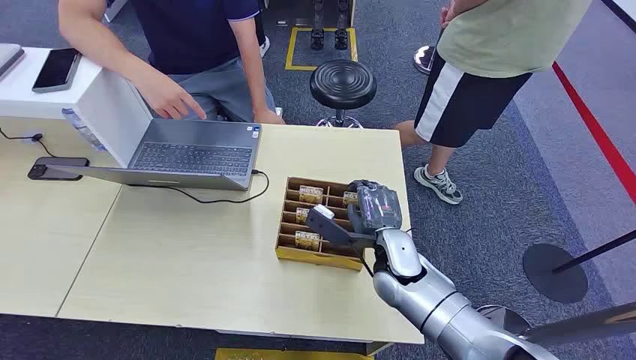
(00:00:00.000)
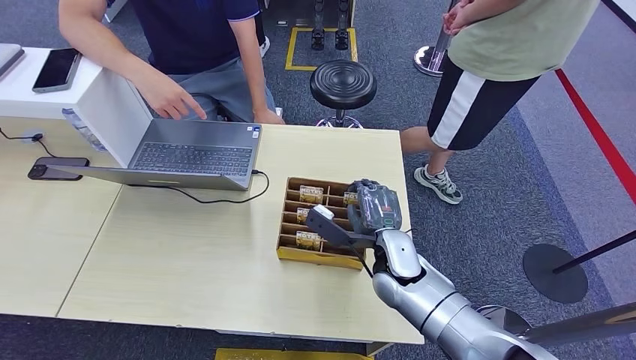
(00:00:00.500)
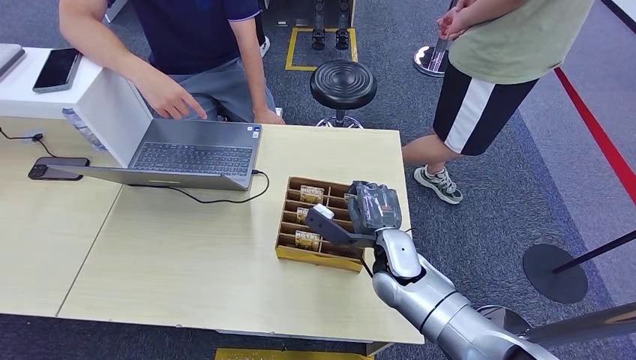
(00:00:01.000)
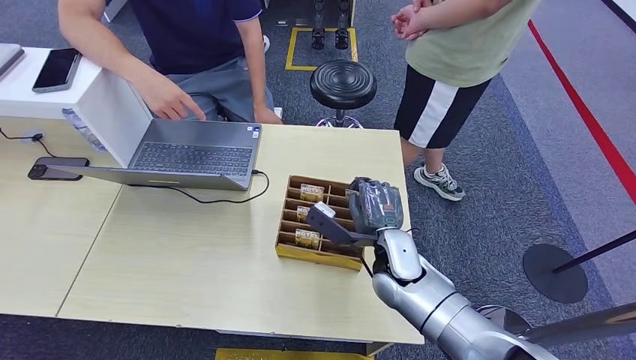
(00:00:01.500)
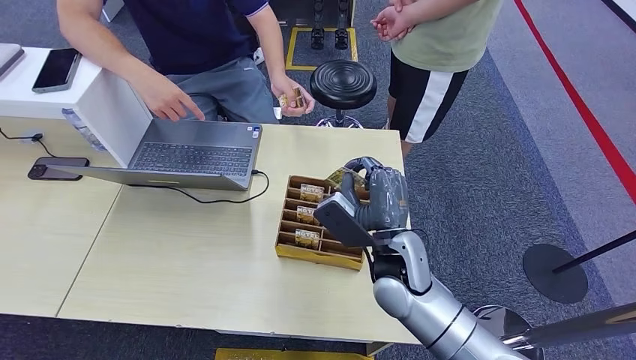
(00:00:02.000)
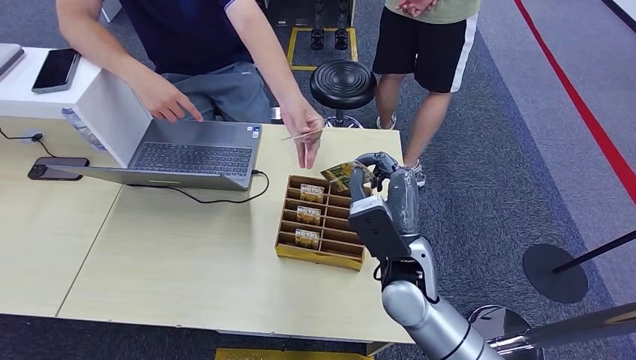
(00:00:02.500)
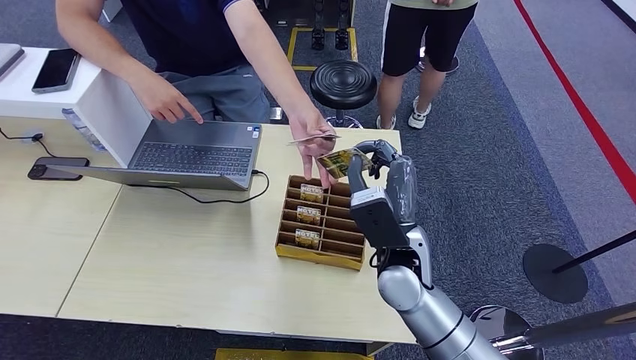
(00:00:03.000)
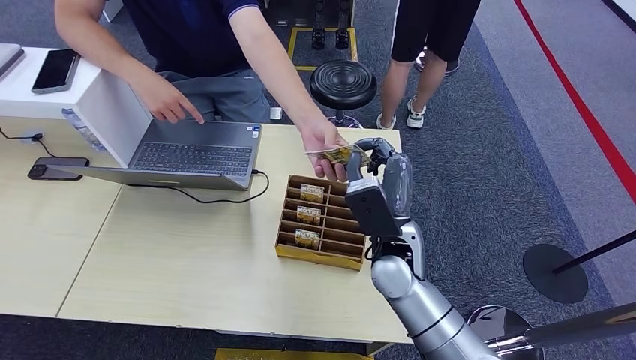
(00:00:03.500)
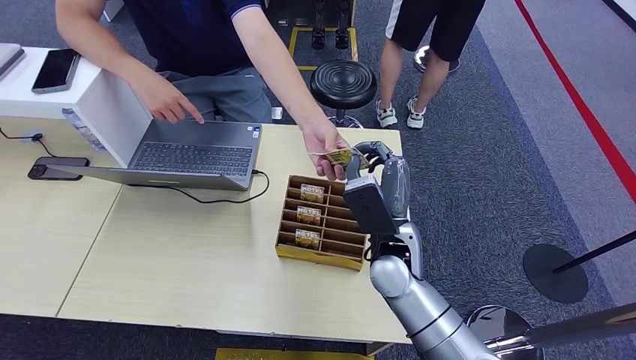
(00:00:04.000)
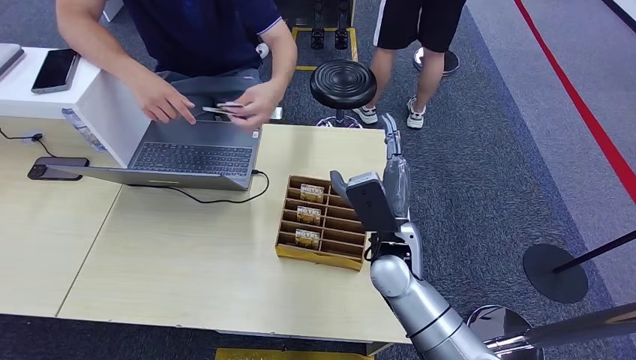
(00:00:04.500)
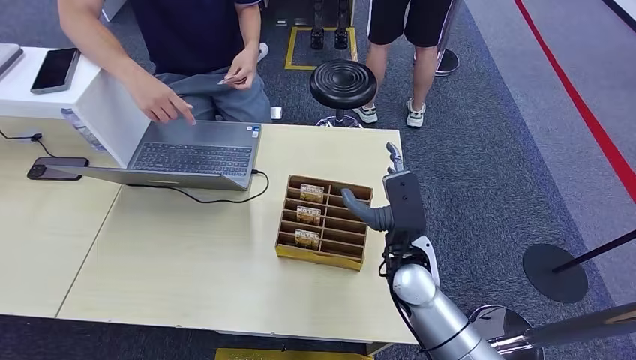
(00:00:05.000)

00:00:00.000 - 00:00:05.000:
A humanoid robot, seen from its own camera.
Step, 00:00:00.000 - 00:00:02.000: Pick up the key card from the card box.
Step, 00:00:02.500 - 00:00:04.500: Hand the key card to the target.

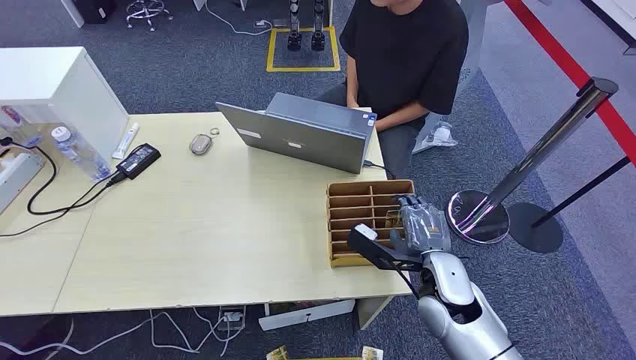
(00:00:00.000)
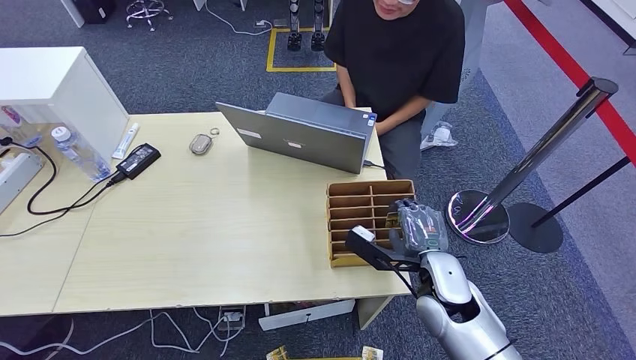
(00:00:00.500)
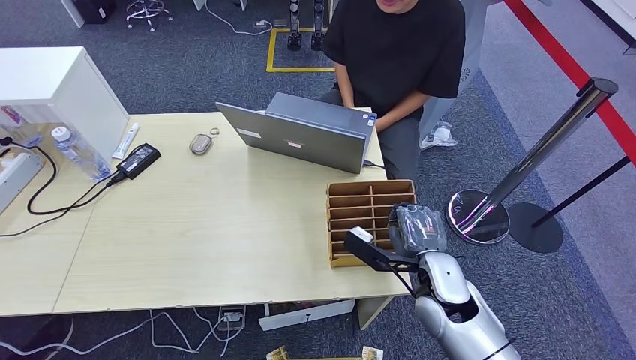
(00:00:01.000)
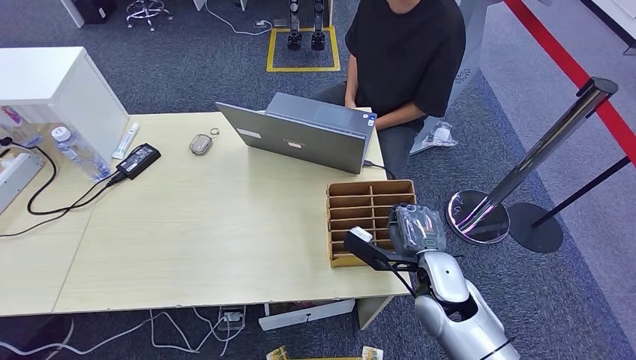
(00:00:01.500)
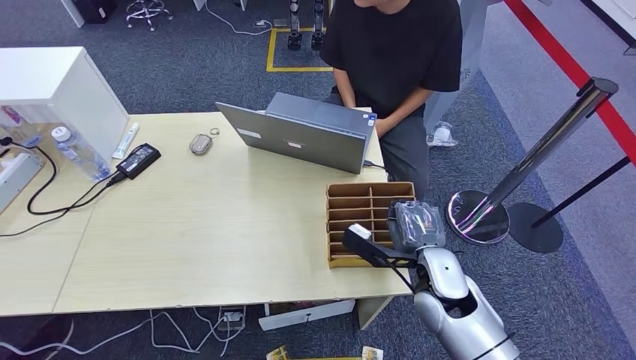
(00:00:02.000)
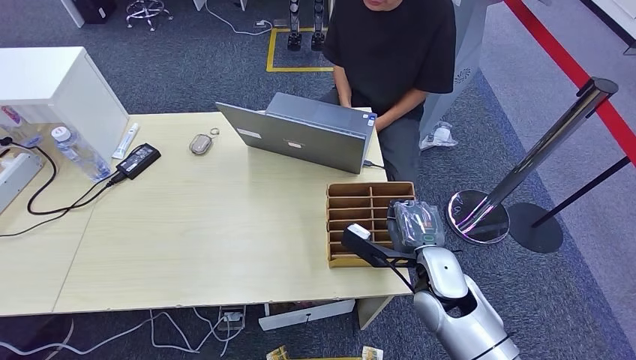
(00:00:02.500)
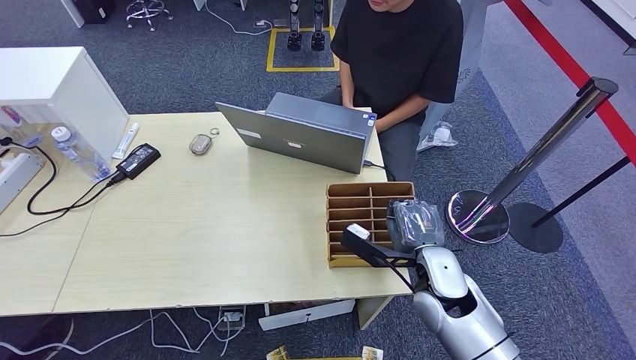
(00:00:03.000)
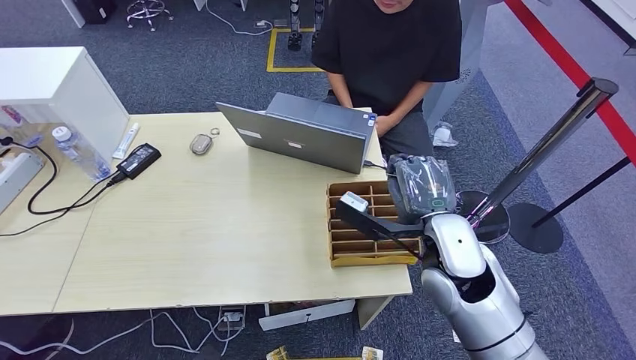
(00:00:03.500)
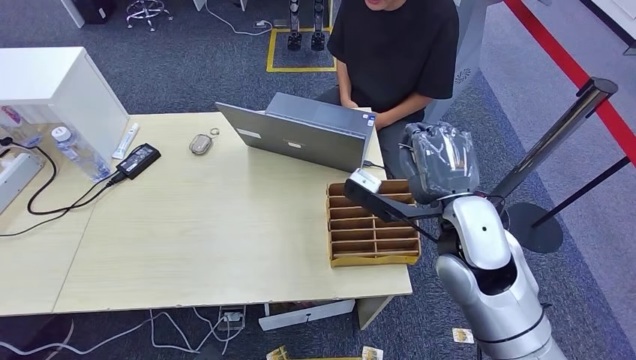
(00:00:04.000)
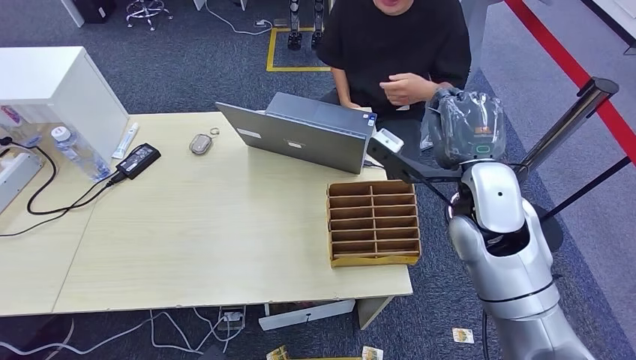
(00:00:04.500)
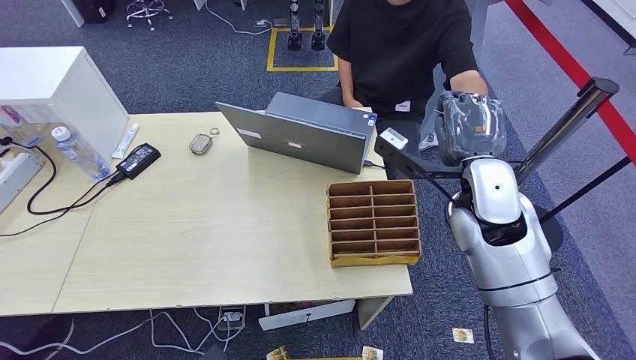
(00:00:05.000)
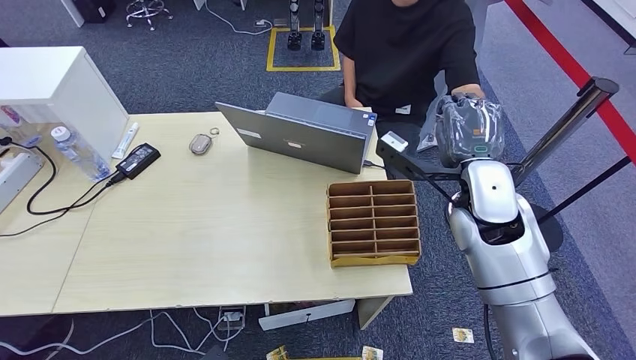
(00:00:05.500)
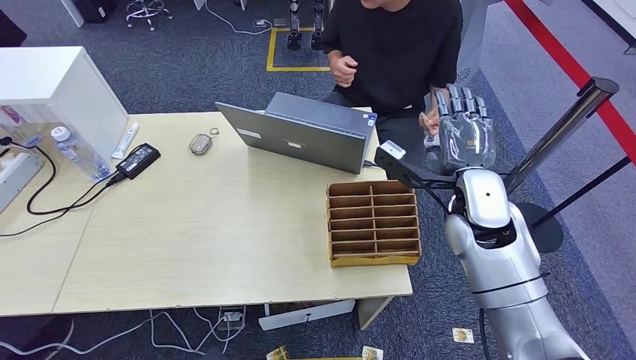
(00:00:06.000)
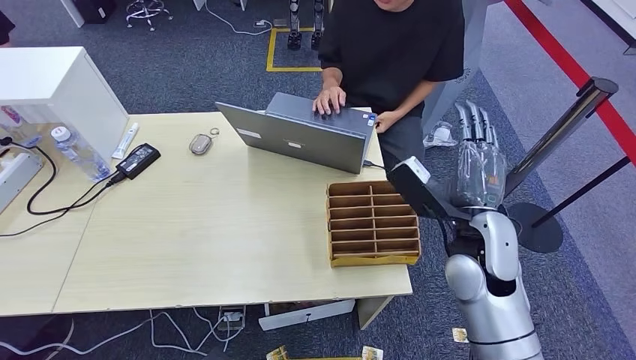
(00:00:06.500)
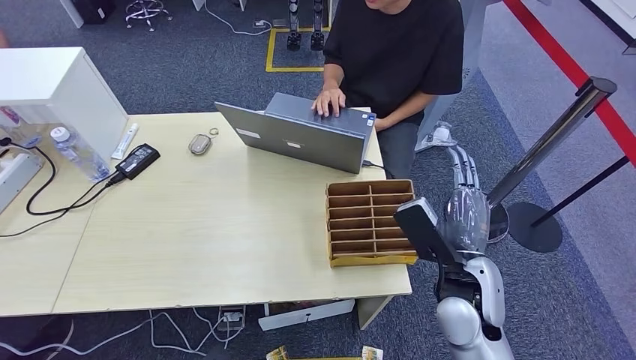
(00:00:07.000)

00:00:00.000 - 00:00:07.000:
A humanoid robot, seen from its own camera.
Step, 00:00:00.000 - 00:00:03.500: Pick up the key card from the card box.
Step, 00:00:04.000 - 00:00:07.000: Hand the key card to the target.
00:00:02.000 - 00:00:03.500: The right hand is displaced upward by roughly 10 cm.
00:00:03.500 - 00:00:05.000: The right hand moves forward, upward and to the right, about 10 cm.
00:00:05.000 - 00:00:07.000: The right hand goes roughly 15 cm backward and downward.
